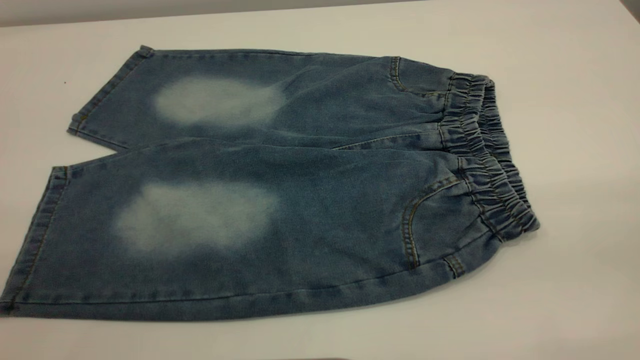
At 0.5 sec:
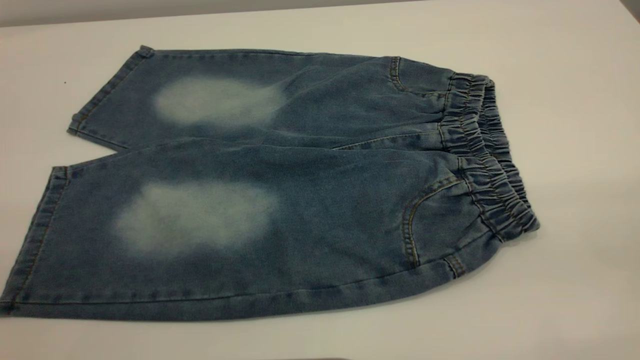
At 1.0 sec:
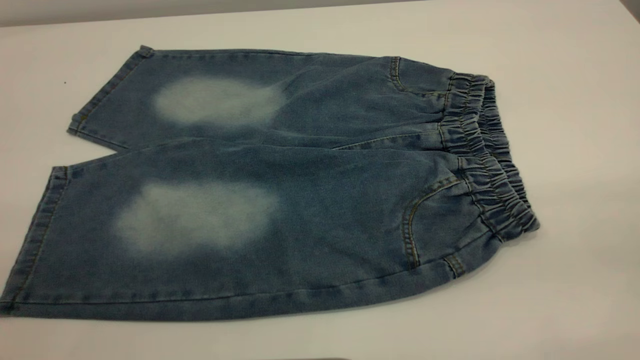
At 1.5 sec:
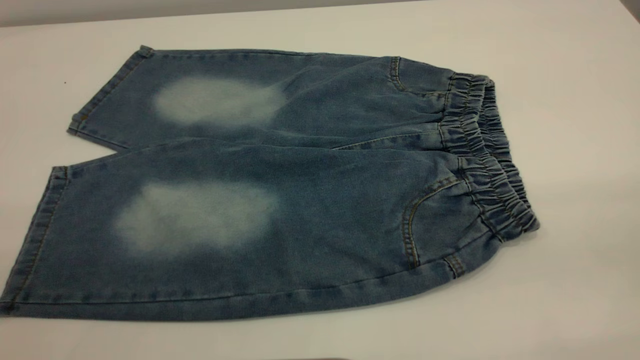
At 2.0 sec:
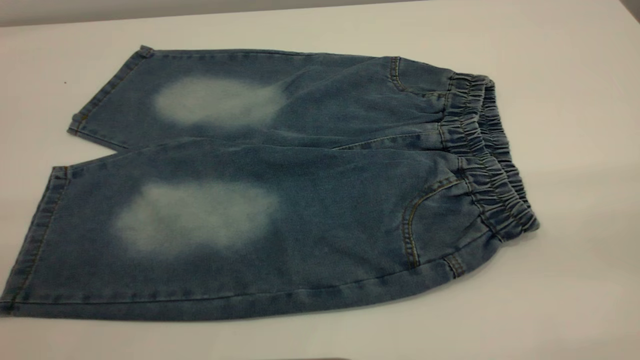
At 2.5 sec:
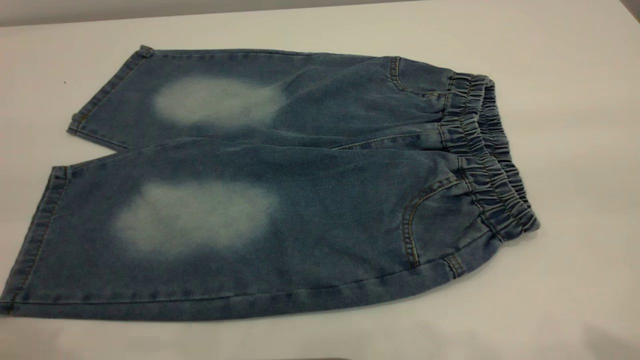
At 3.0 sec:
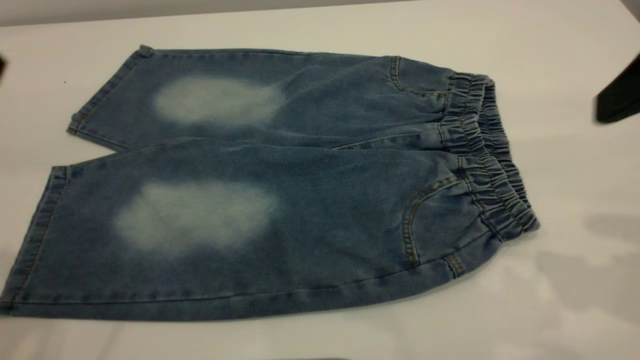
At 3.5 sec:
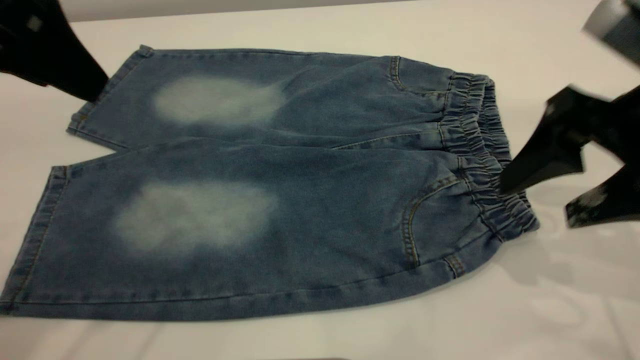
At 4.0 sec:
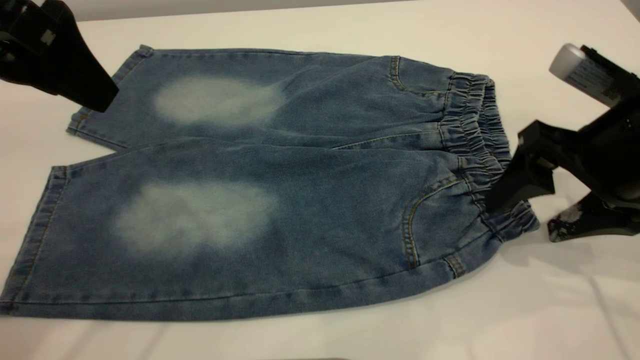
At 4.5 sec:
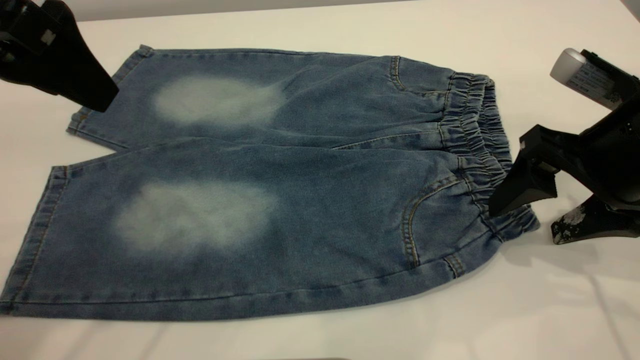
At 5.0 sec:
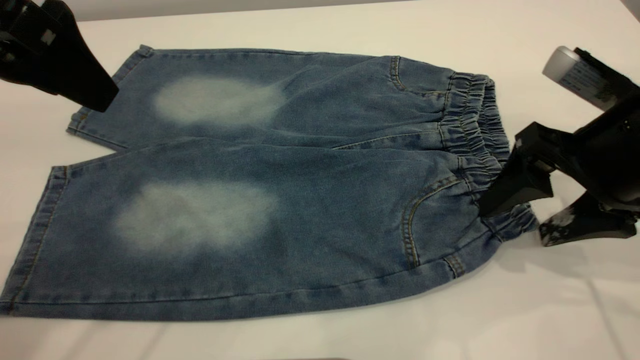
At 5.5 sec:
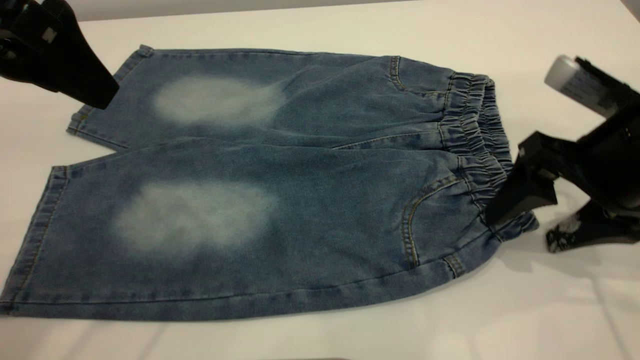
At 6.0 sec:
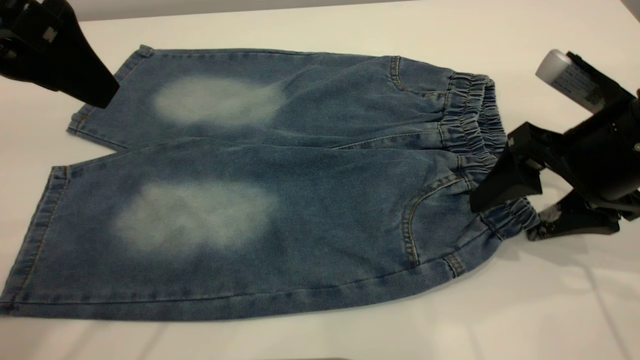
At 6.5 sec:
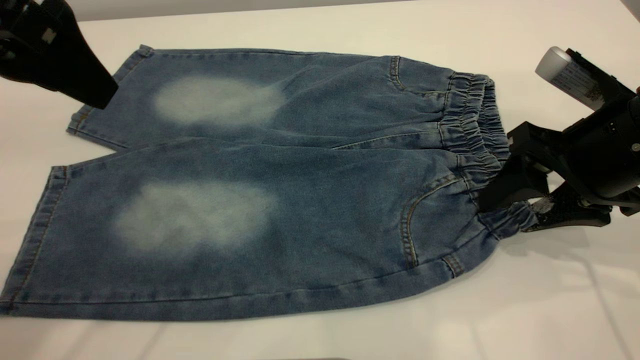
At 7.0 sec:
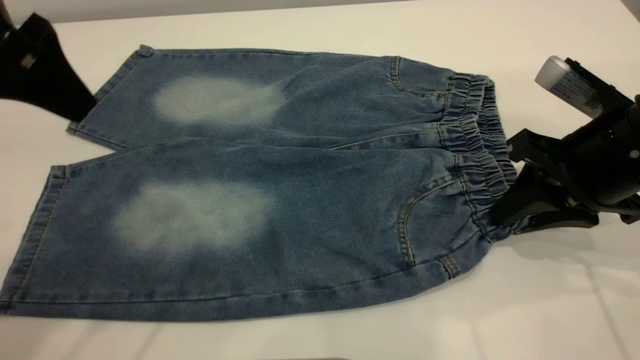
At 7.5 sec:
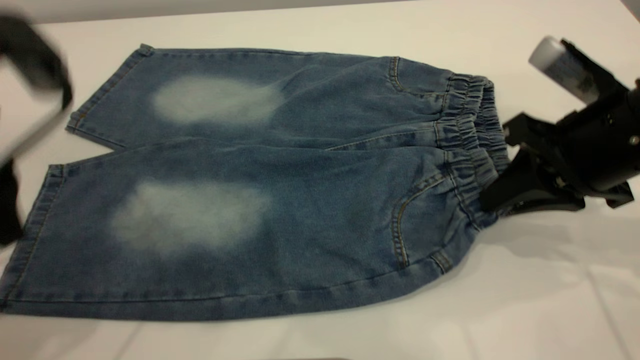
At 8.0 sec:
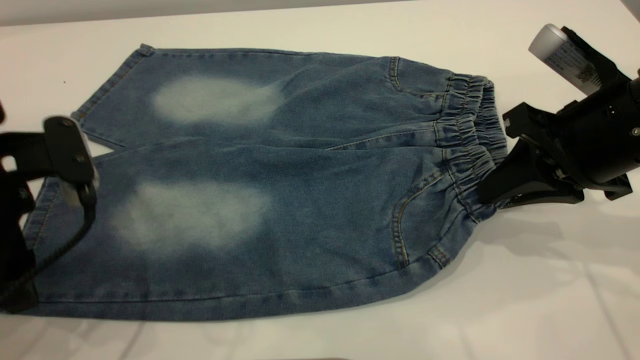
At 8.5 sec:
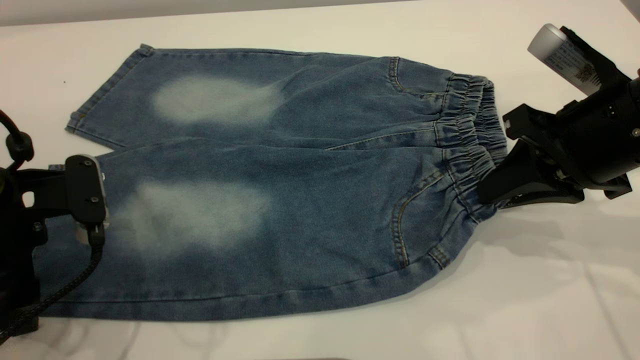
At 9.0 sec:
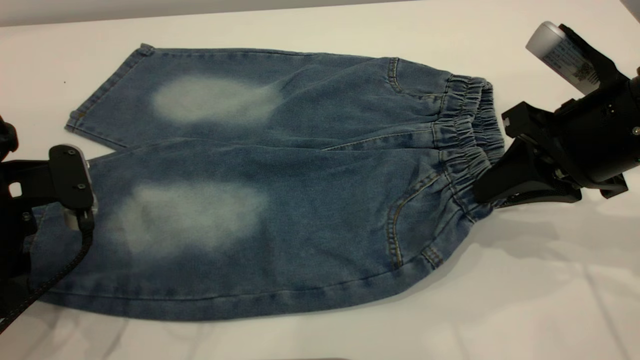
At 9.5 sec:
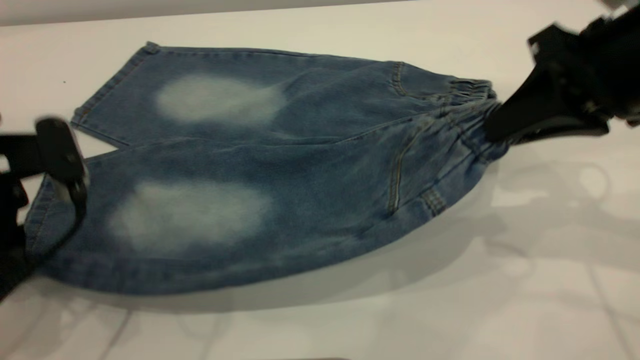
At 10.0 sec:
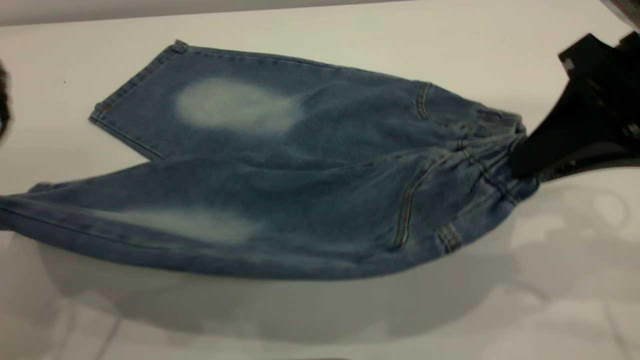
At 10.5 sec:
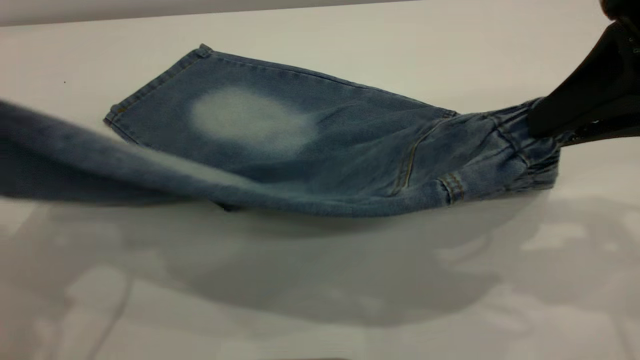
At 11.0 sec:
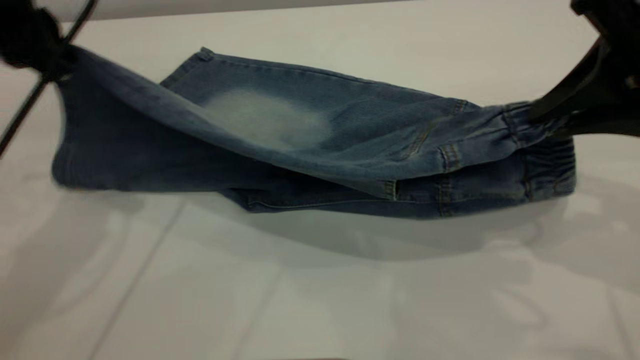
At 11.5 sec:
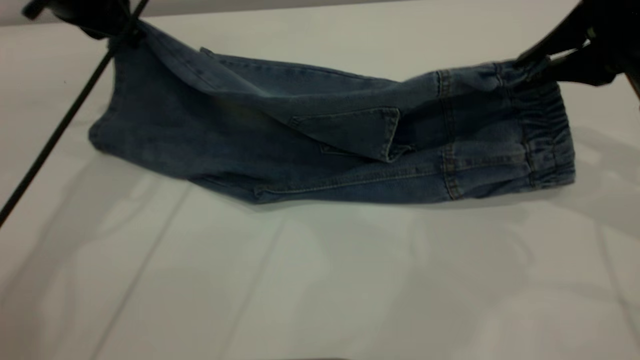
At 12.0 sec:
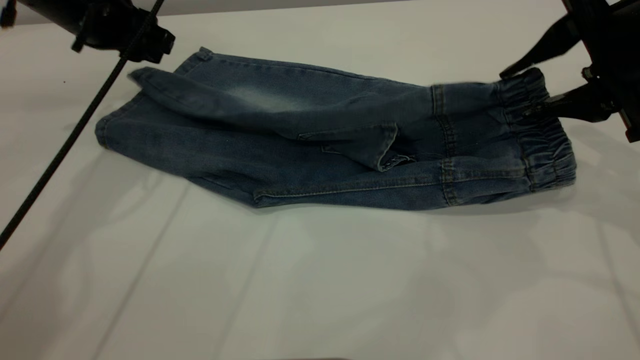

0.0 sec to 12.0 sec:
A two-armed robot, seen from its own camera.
2.0 sec to 4.0 sec: The right gripper heads forward and downward, covering some 30 cm, while the left gripper travels forward by some 25 cm.
4.0 sec to 6.0 sec: There are only small adjustments of the grippers.
6.0 sec to 8.0 sec: The left gripper is displaced downward by approximately 15 cm. The right gripper closes up.
8.0 sec to 10.0 sec: Both grippers move upward, about 10 cm. The left gripper closes its fingers.
10.0 sec to 12.0 sec: The right gripper is displaced forward by approximately 10 cm, and opens its fingers, while the left gripper moves forward, about 20 cm, and opens its fingers.

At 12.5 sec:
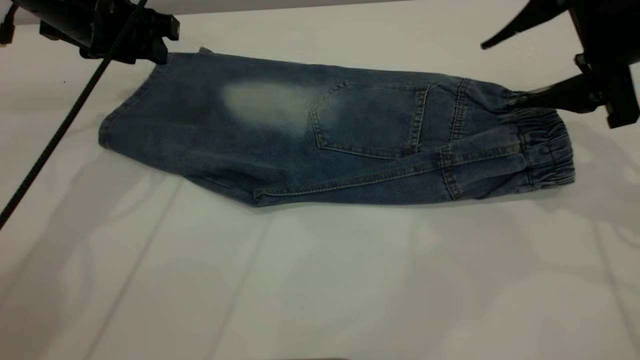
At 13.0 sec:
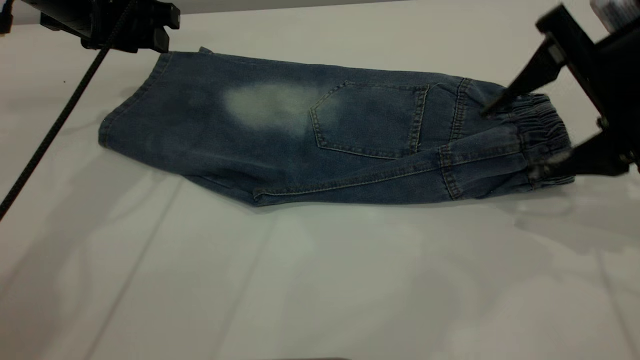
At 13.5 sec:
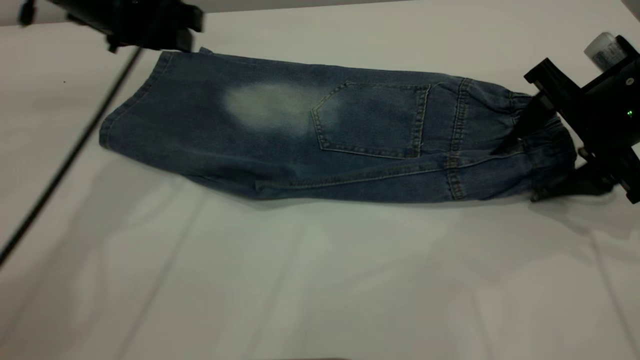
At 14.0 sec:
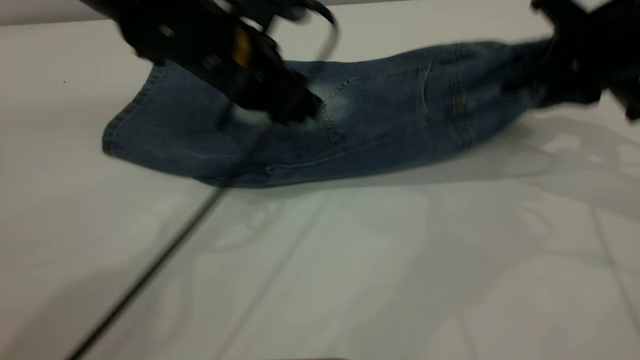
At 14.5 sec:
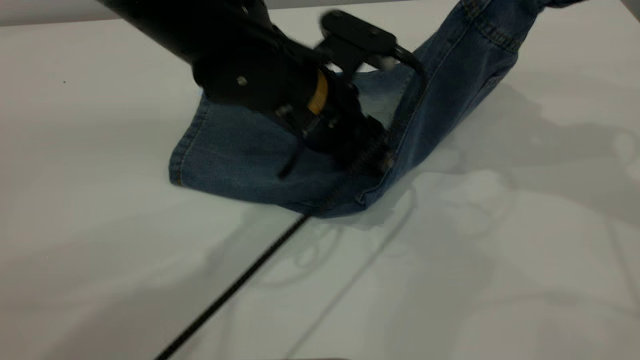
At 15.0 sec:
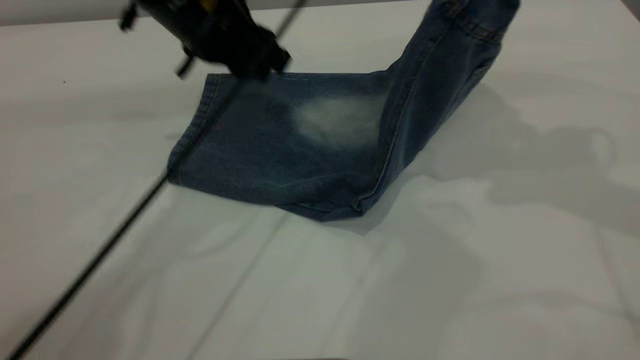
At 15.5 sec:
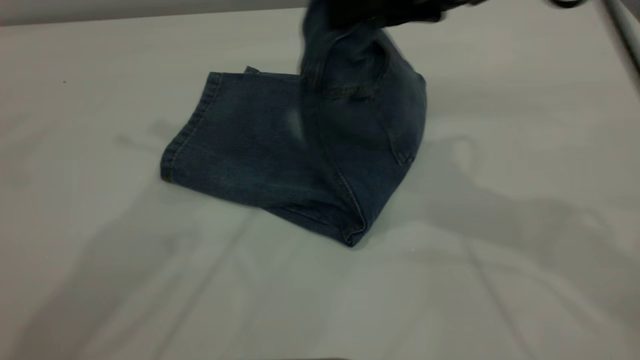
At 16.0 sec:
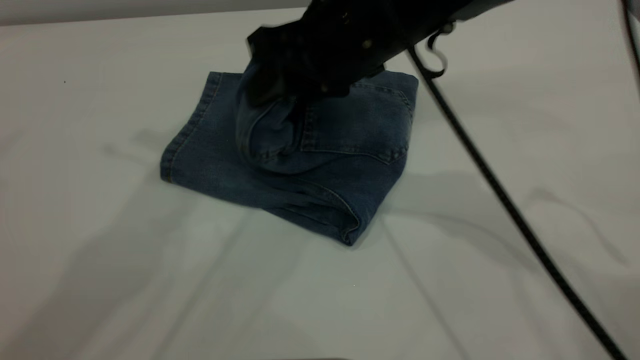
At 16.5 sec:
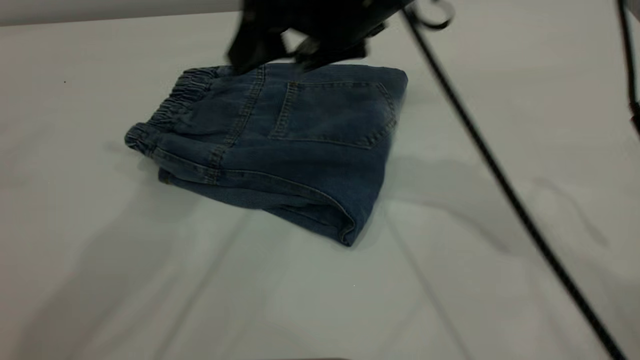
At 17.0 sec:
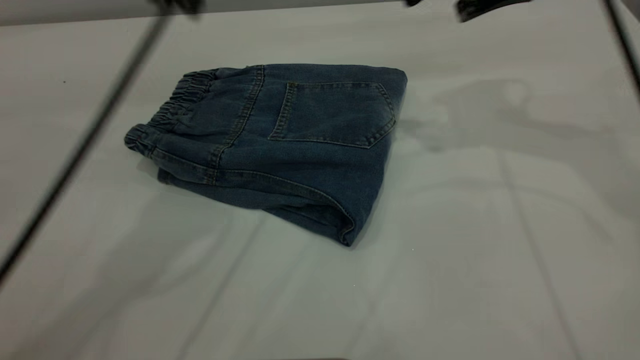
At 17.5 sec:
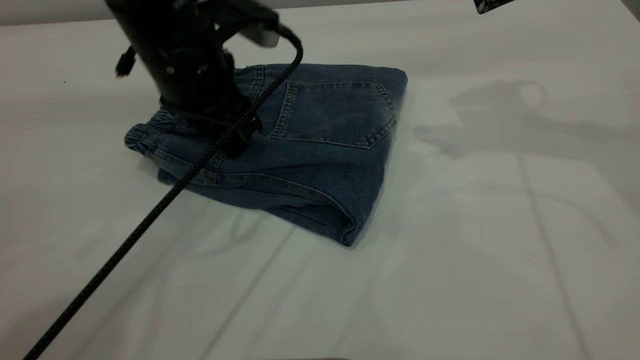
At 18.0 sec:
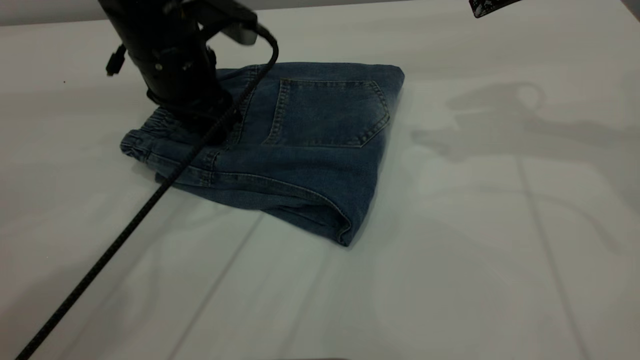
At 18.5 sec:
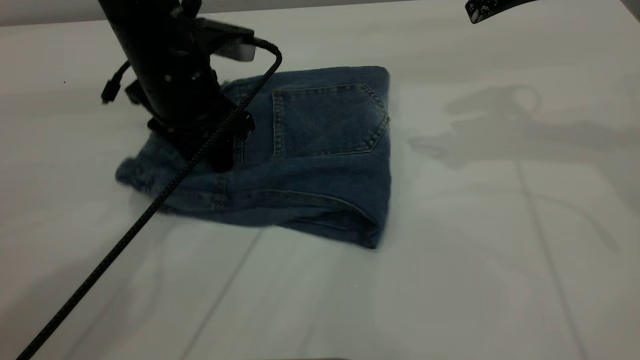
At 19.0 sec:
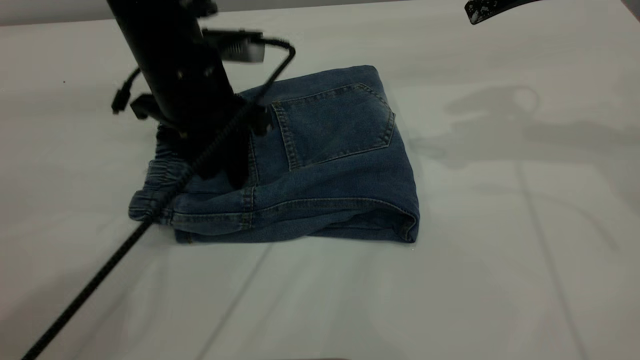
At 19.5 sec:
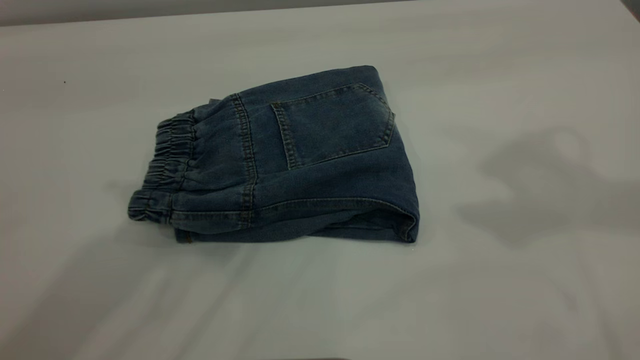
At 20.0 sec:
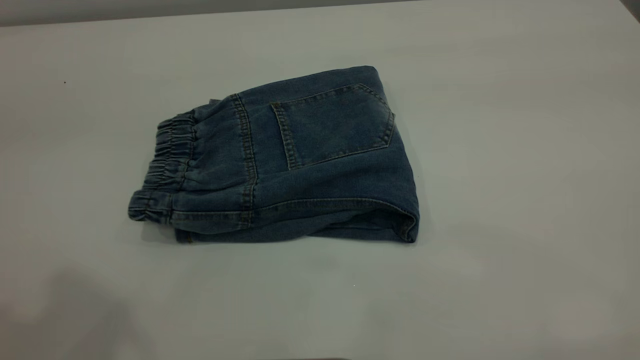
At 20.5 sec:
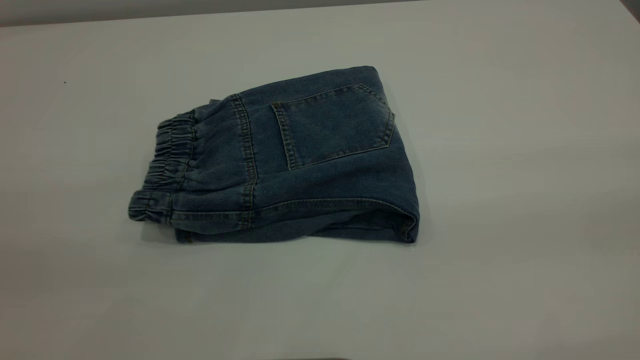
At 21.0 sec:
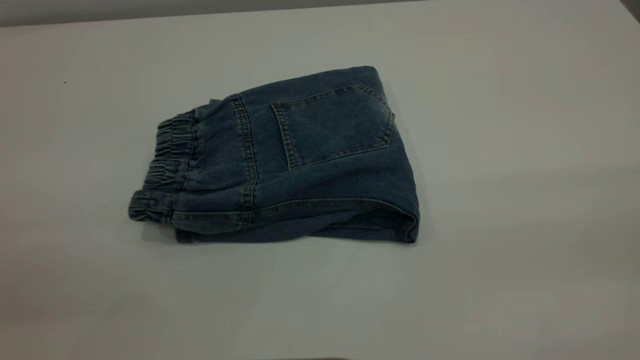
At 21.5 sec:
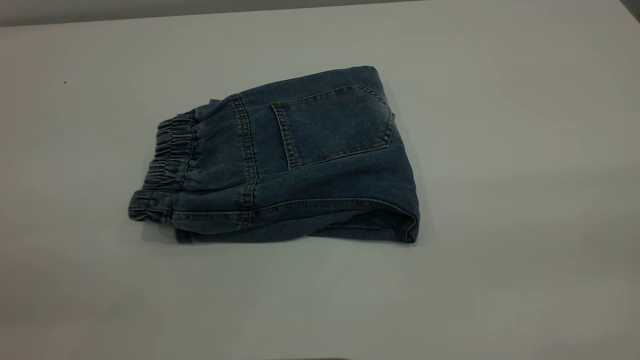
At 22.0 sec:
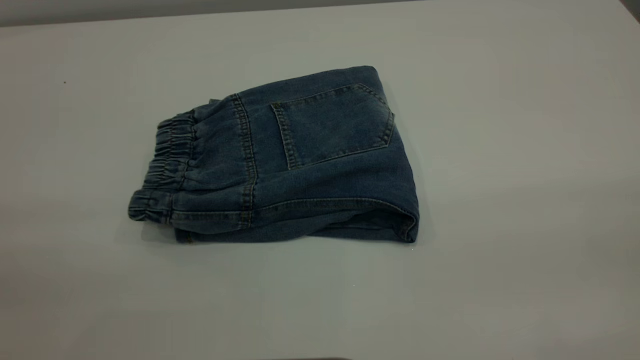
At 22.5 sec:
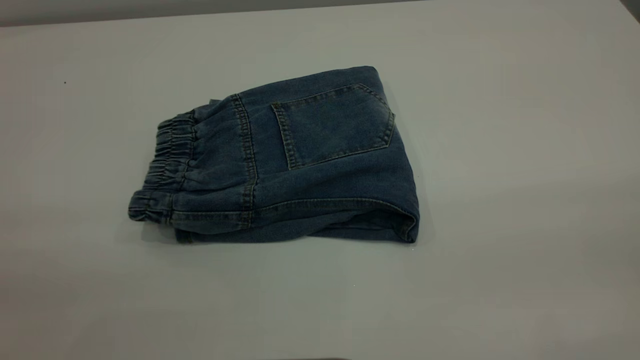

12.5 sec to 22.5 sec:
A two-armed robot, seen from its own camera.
Step, 13.5 sec to 16.5 sec: Fold your pants from right to left.
12.5 sec to 14.5 sec: The left gripper heads to the right and backward, covering approximately 20 cm; the right gripper is displaced upward by roughly 10 cm, and closes up.
14.5 sec to 16.5 sec: The left gripper shifts approximately 30 cm upward and to the left, while the right gripper shifts about 20 cm to the left, and opens.
16.5 sec to 18.5 sec: The left gripper goes roughly 25 cm downward, while the right gripper travels to the right by about 15 cm.
18.5 sec to 20.5 sec: The left gripper is displaced backward, upward and to the left by some 40 cm. The right gripper travels backward by roughly 40 cm.
